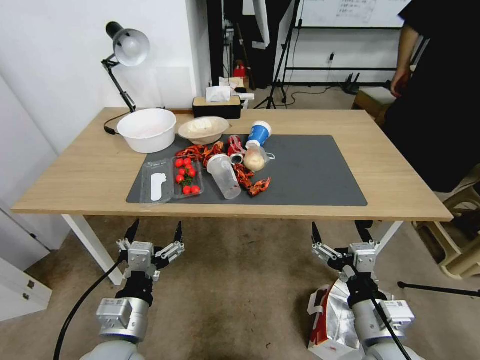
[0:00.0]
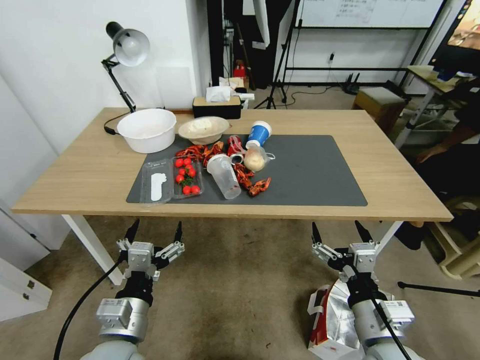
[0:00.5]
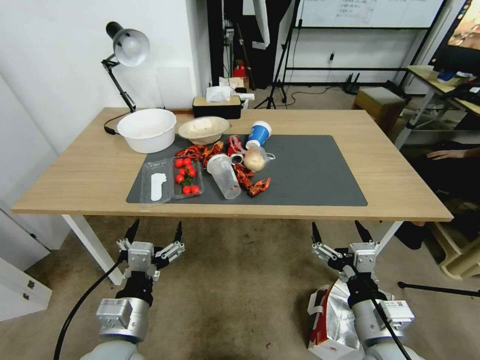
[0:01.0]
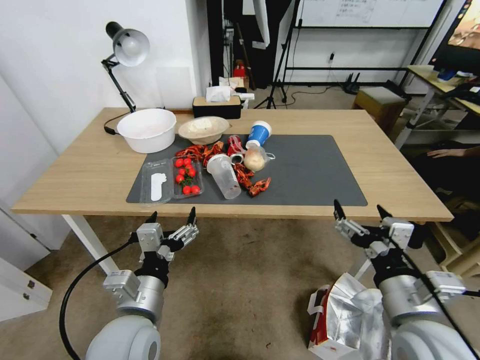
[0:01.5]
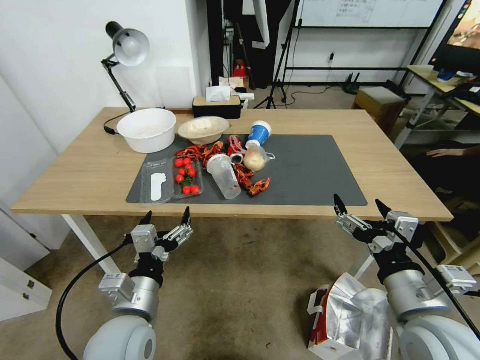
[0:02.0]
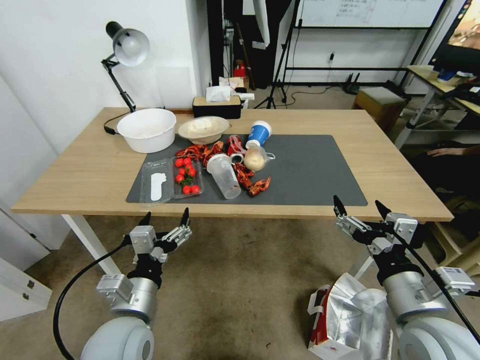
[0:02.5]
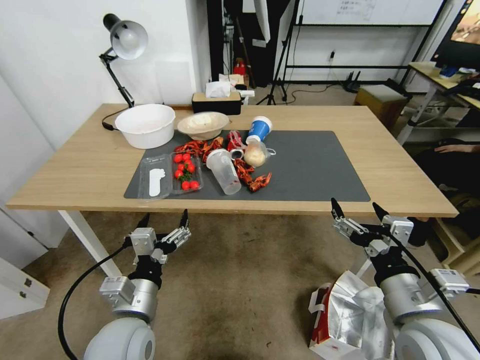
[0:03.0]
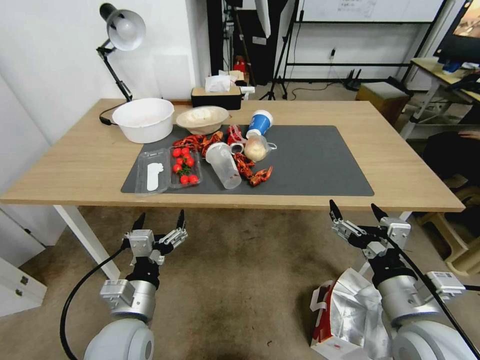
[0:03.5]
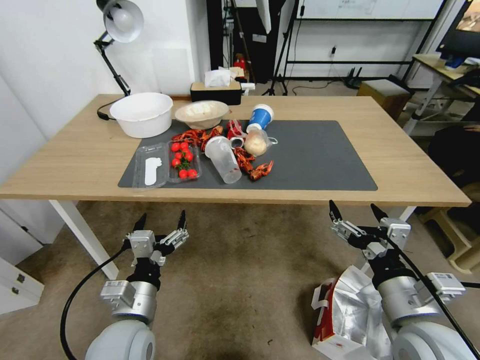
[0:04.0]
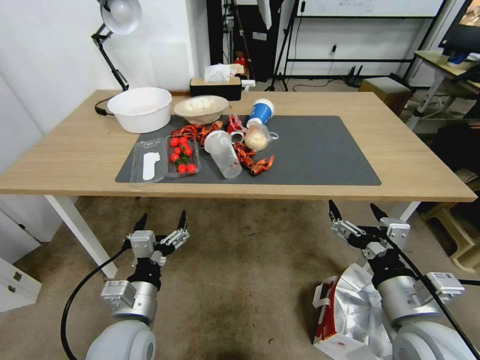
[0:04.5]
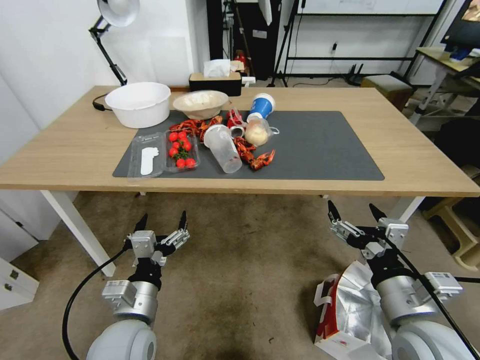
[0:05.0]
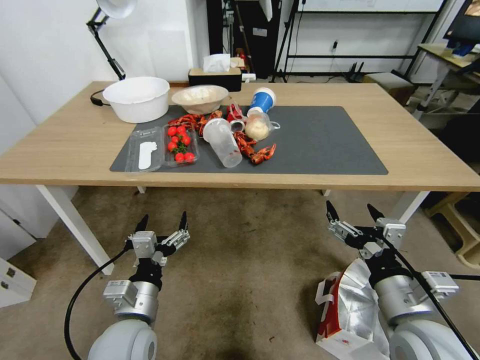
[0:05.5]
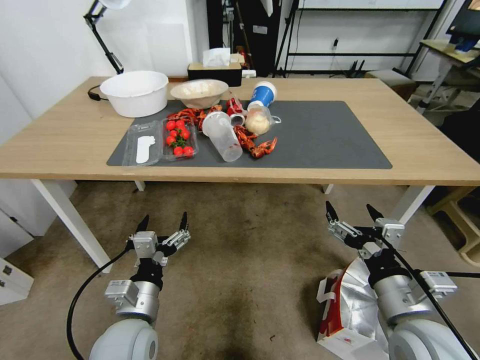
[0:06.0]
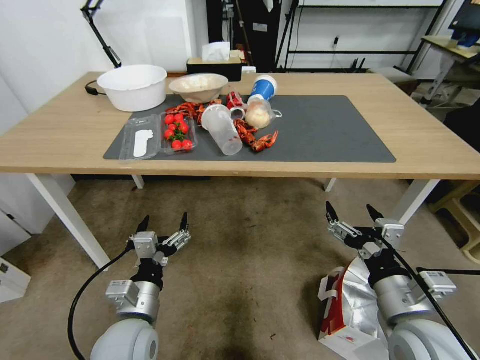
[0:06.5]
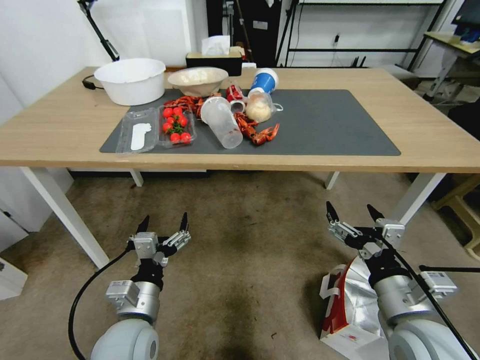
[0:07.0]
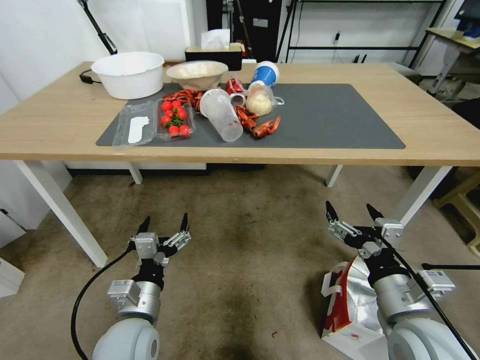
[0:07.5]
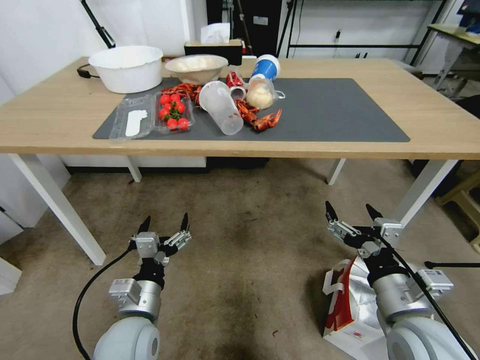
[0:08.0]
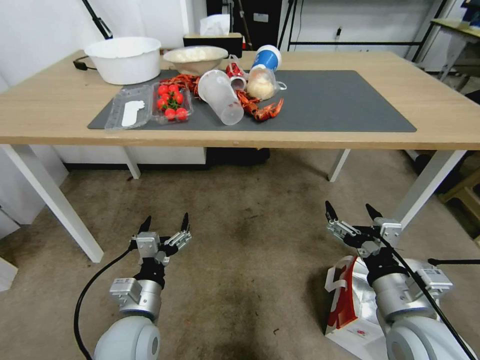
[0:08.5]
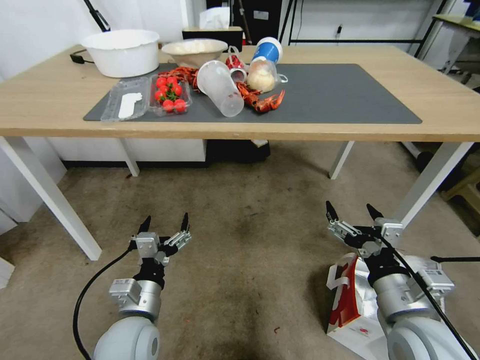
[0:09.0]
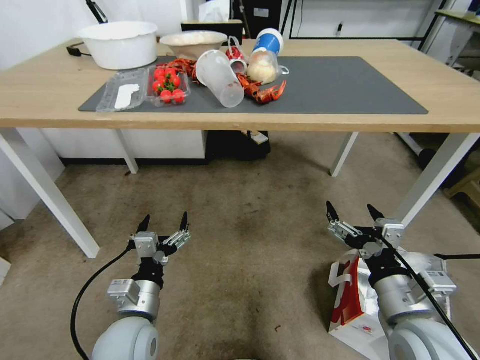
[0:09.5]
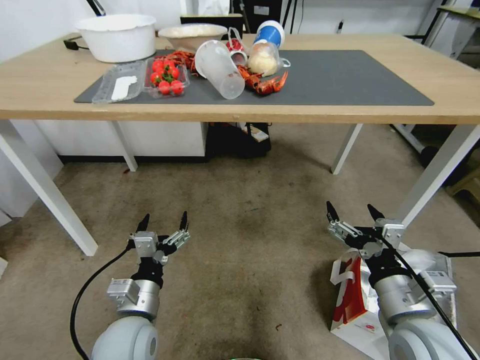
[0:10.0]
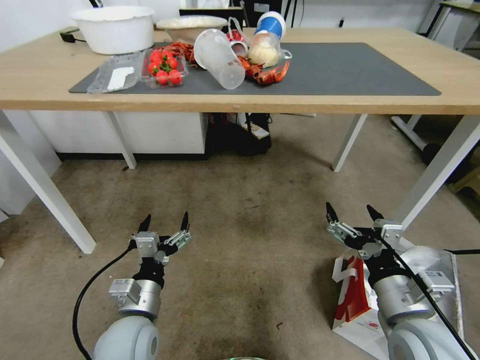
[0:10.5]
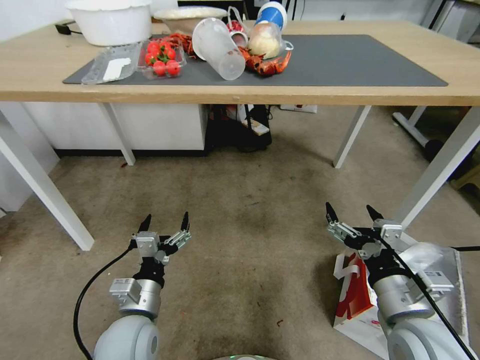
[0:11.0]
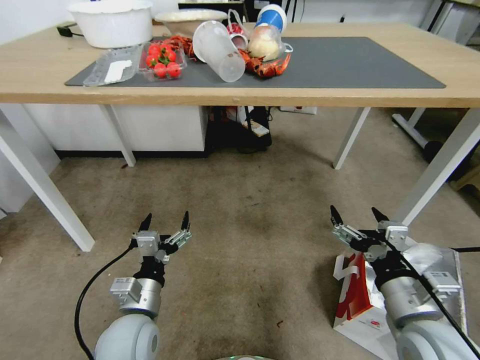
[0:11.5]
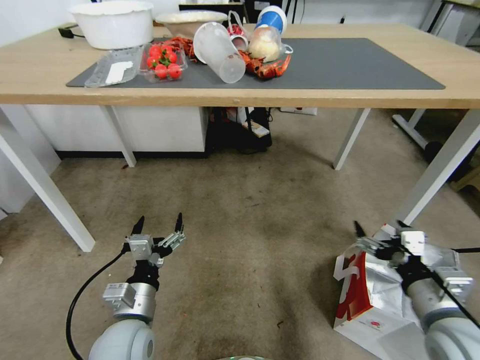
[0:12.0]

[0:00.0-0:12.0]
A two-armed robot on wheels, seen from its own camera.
Task of the whole recording: Pick up the food delivery bag from the floor and place it on the table.
0:10.0 to 0:12.0: The right gripper moves to the right, approximately 5 cm.

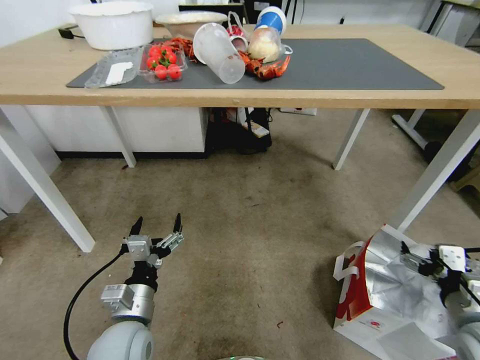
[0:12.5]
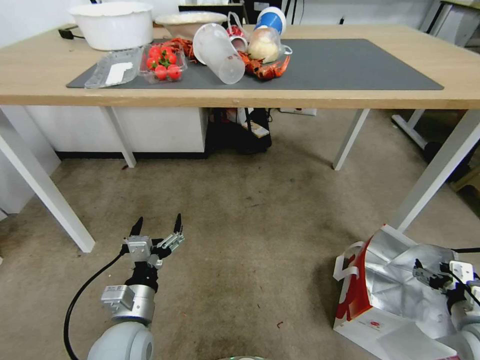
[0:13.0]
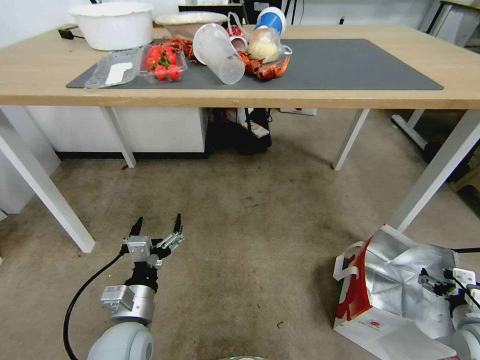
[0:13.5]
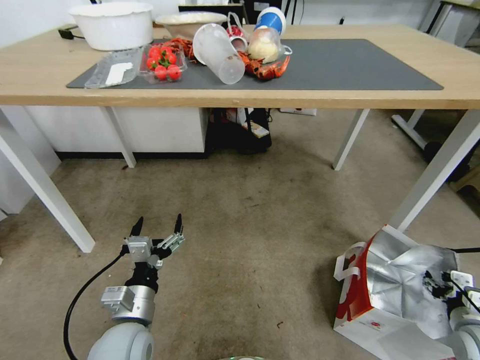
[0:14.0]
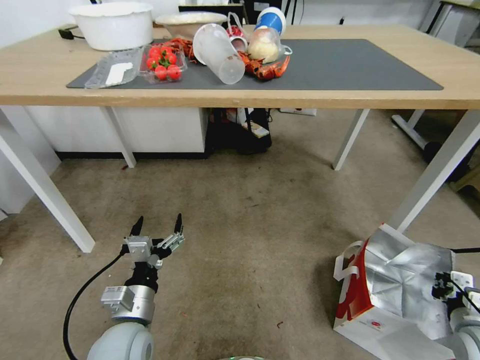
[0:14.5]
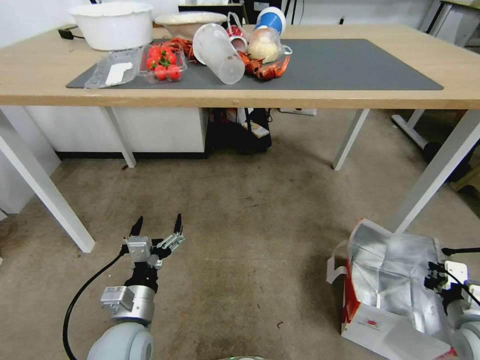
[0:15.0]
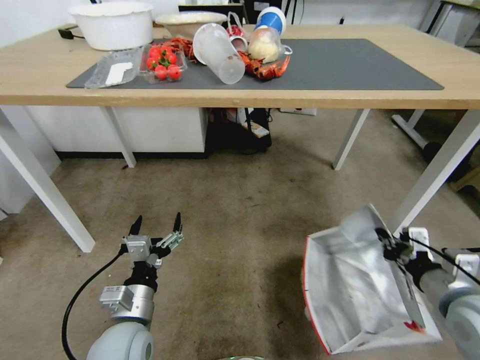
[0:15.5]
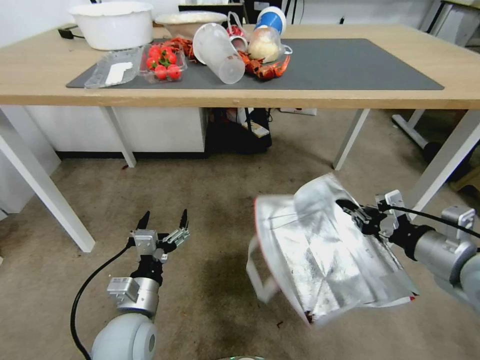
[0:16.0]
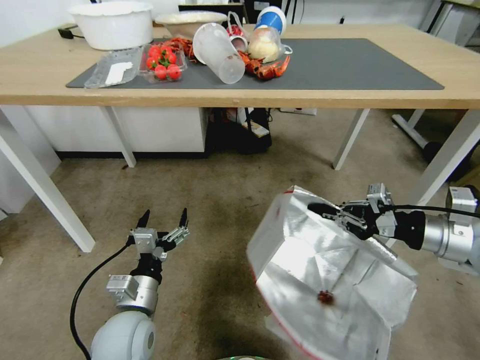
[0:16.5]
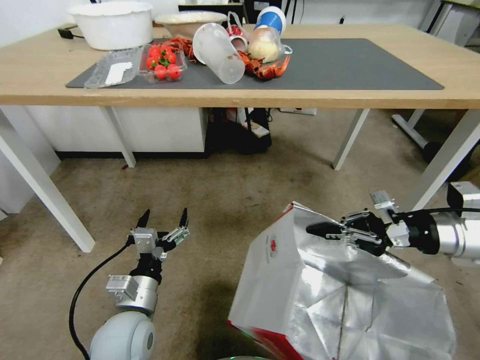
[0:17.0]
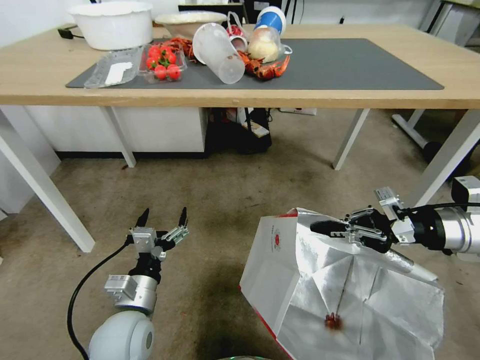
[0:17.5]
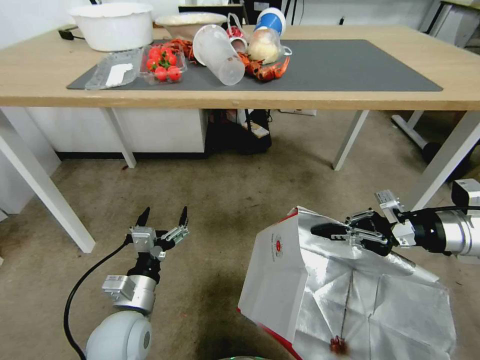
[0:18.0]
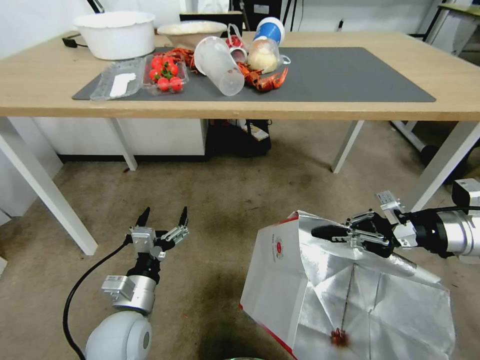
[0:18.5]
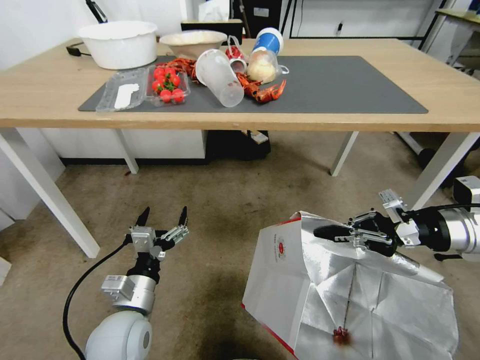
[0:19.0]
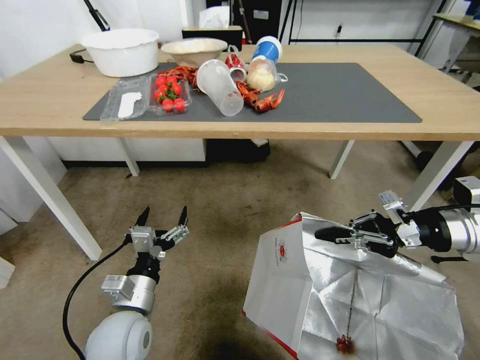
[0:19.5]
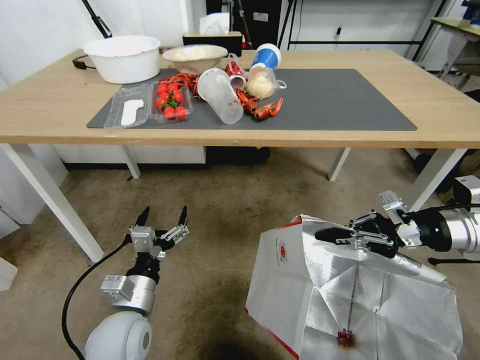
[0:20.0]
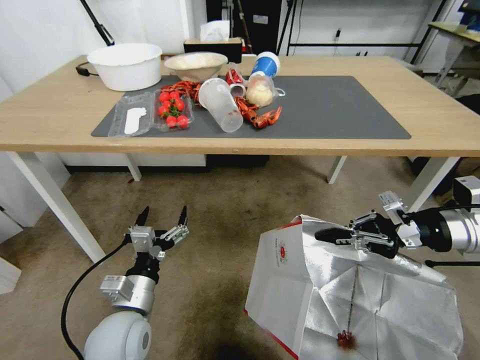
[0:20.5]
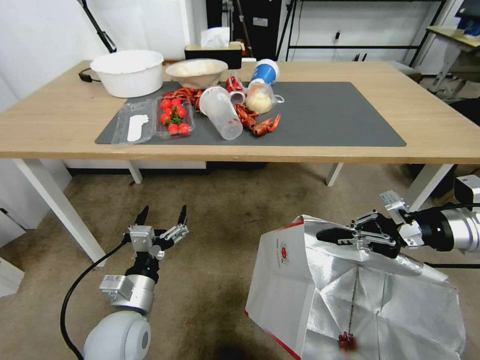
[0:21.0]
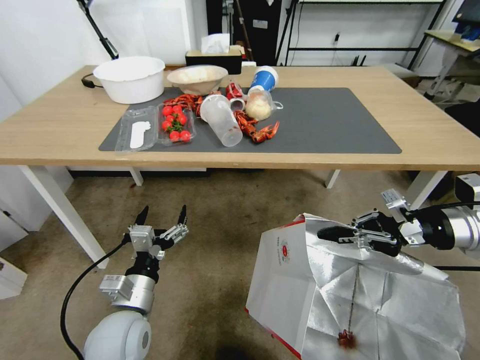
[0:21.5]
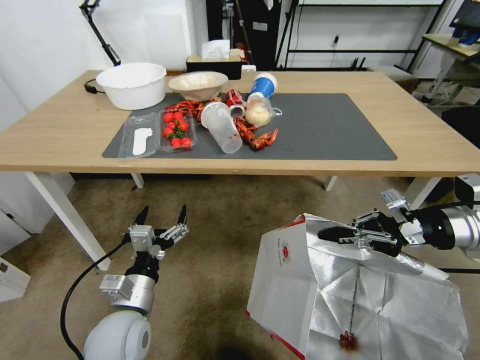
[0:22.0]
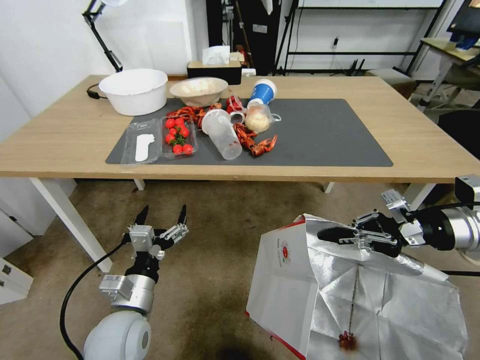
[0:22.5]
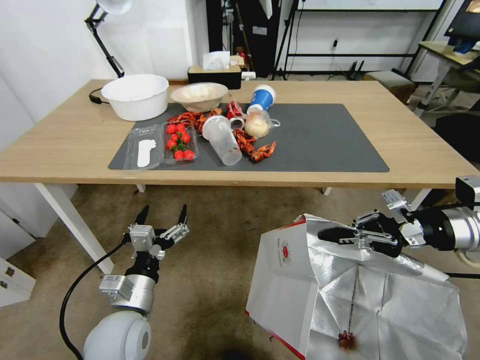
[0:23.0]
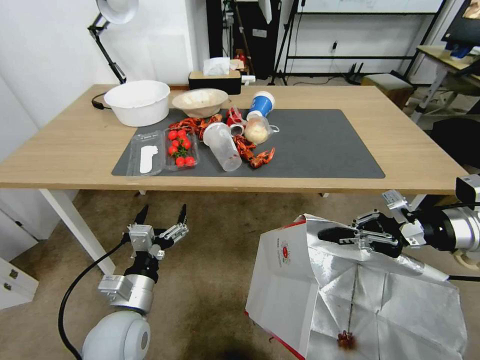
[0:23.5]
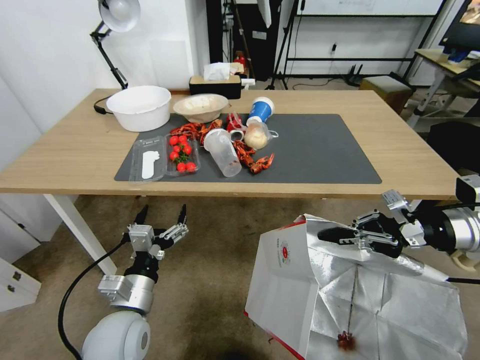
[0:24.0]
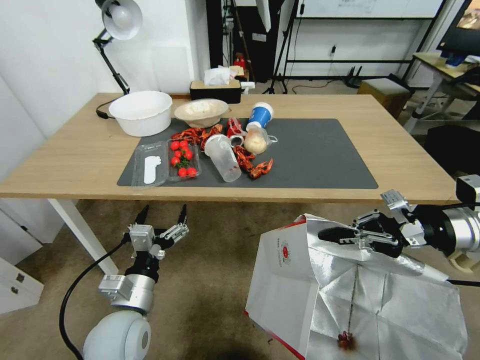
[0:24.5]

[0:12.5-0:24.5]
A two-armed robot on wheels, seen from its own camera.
Task of the whole recording: Pick up the food delivery bag from the floor and place it on the table.
0:12.5 to 0:14.5: The right gripper moves downward and to the right, roughly 10 cm, and closes its fingers.
0:14.5 to 0:16.5: The right gripper goes approximately 25 cm upward and forward.

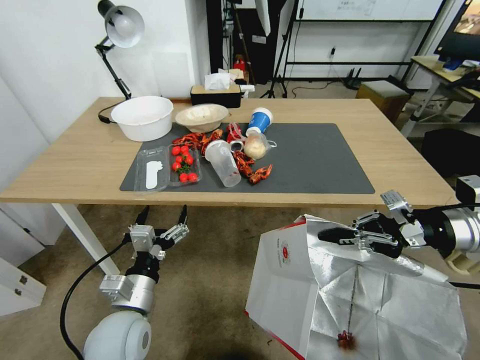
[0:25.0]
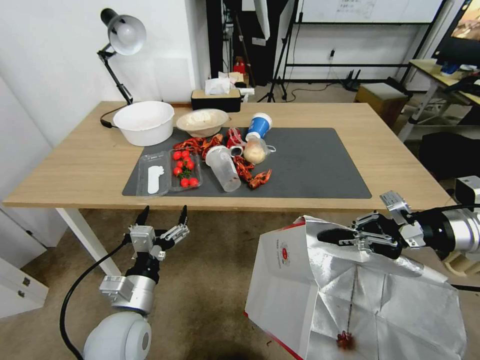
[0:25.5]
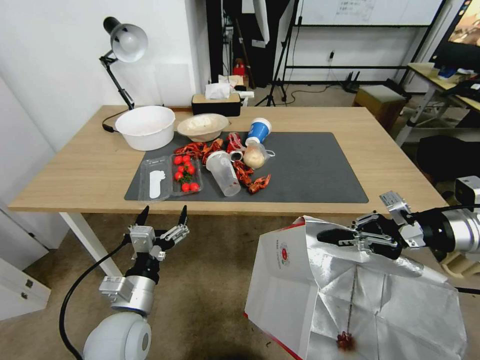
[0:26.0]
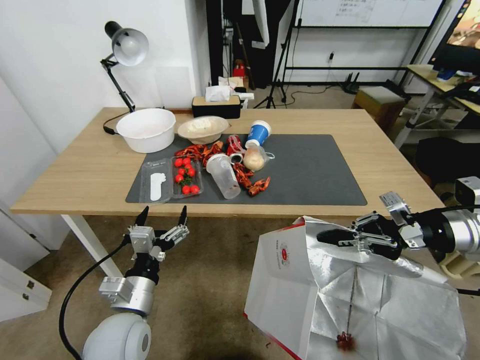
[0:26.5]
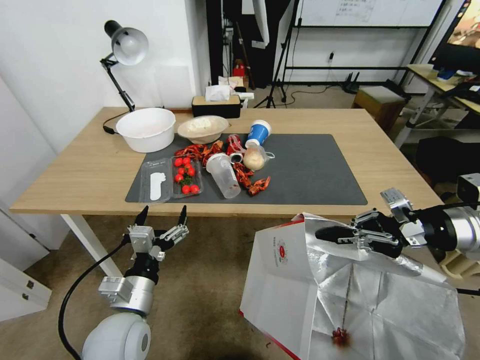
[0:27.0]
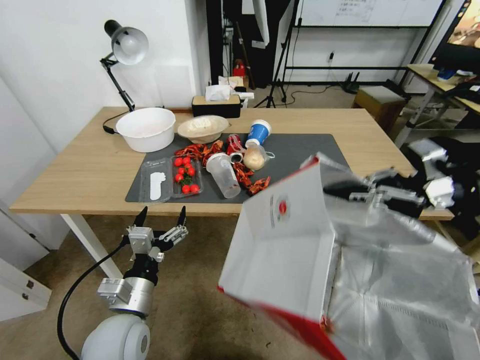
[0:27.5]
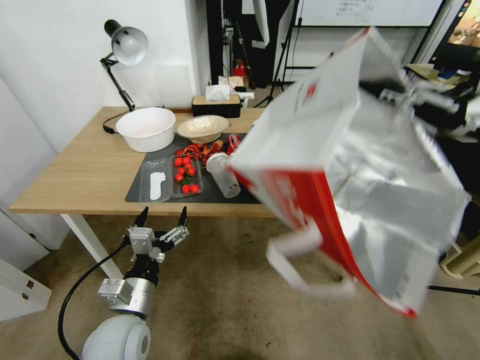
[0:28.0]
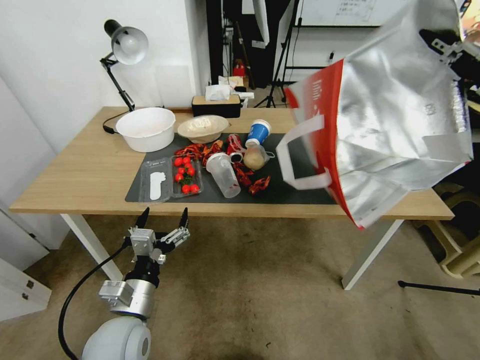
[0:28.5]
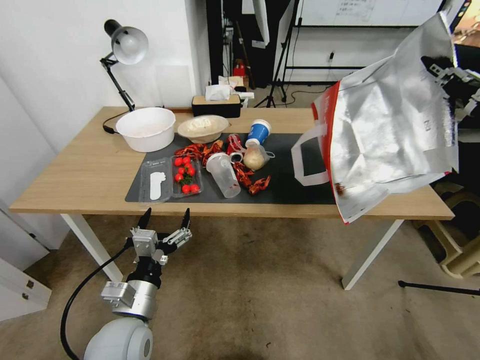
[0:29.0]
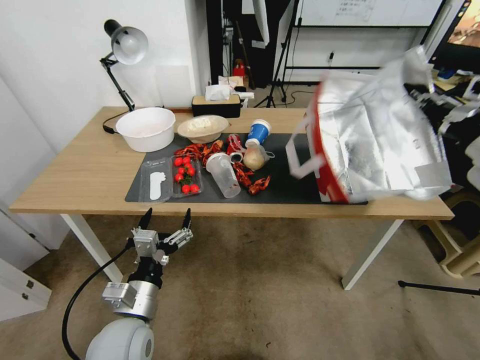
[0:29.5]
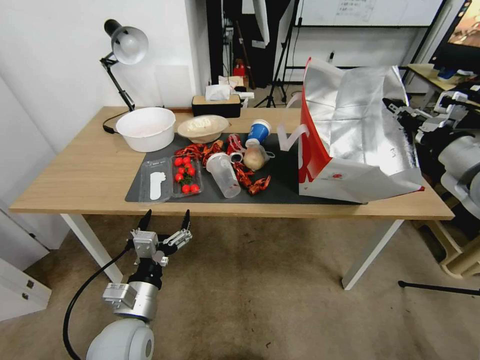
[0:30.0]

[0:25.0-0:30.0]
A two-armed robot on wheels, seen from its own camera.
Task of the whole recording: Pick up the food delivery bag from the floor and place it on the table.
0:25.0 to 0:27.5: The right gripper travels upward by approximately 5 cm.
